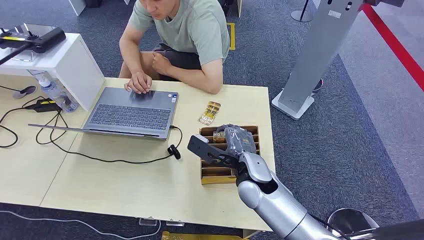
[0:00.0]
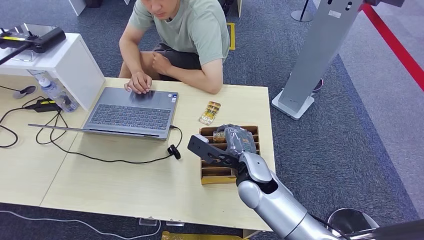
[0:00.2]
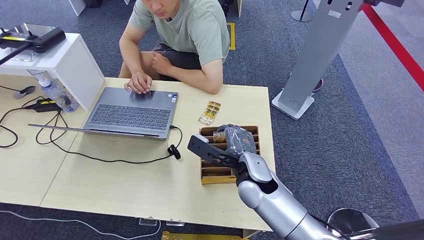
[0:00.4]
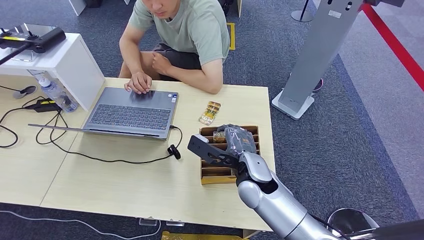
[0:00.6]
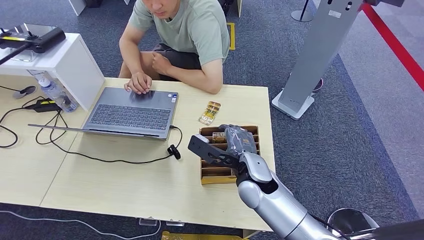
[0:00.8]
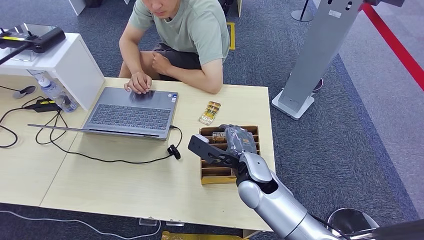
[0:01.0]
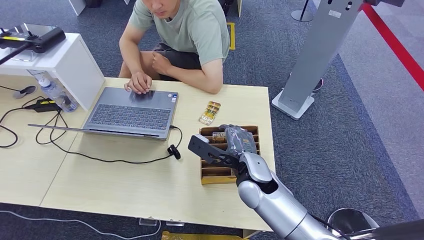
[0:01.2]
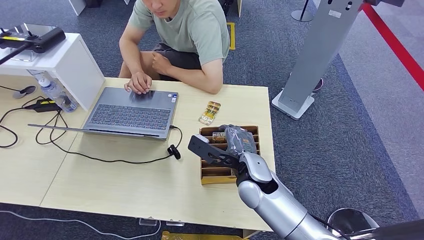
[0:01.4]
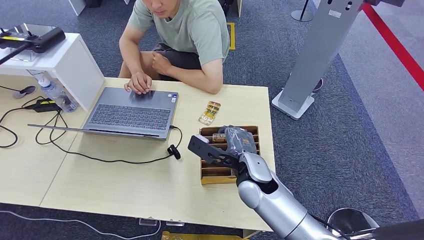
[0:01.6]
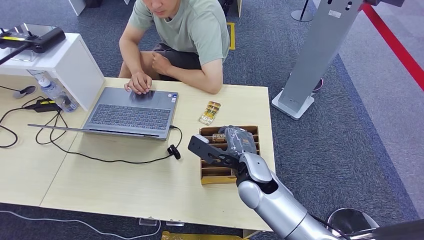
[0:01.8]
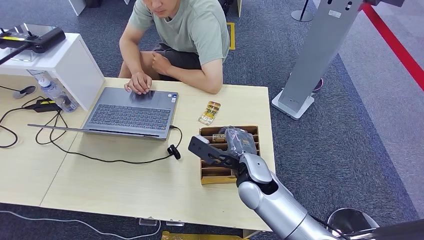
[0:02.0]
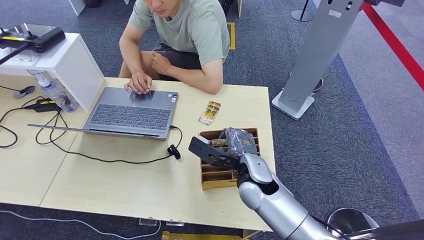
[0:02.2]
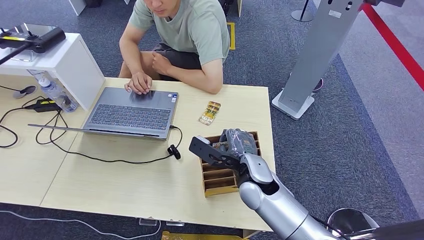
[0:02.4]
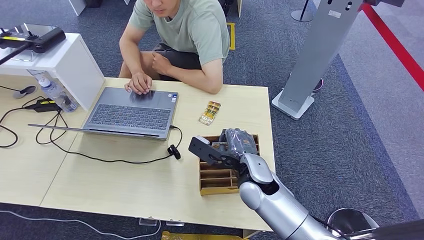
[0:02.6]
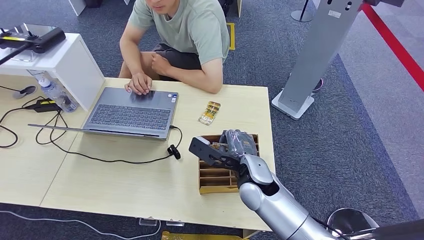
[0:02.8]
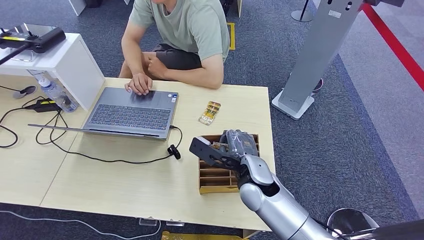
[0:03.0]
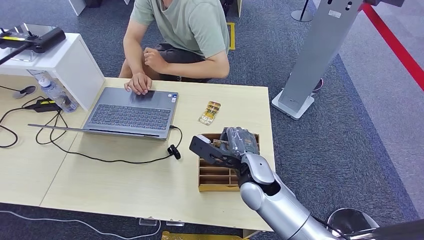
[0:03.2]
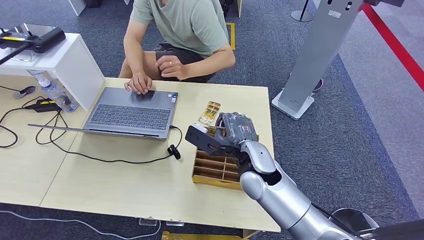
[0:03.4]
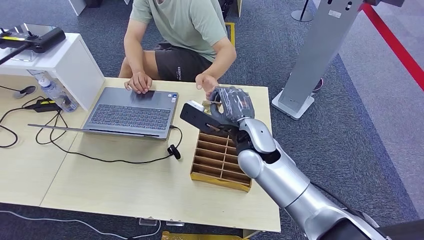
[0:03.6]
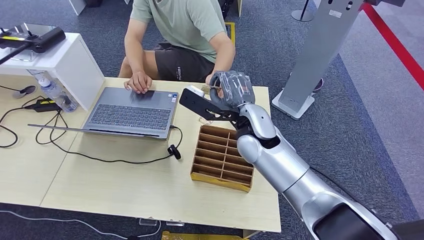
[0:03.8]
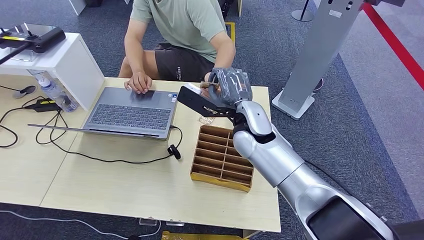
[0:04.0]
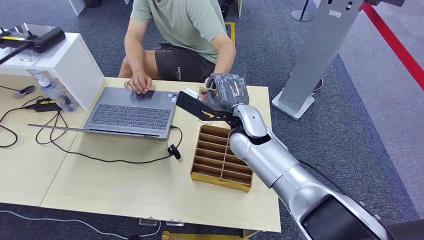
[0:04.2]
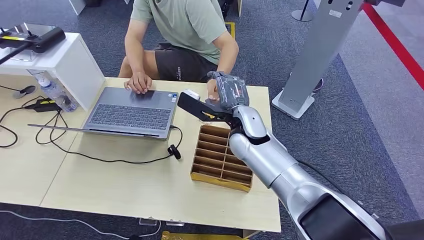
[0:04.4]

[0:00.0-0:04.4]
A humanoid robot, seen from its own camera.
Step, 0:00.0 to 0:03.4: Pick up the key card from the card box.
Step, 0:03.8 to 0:04.2: Hand the key card to the target.
0:01.4 to 0:03.0: Both hands stay put.
0:03.0 to 0:04.4: The right hand goes some 10 cm forward and upward.
